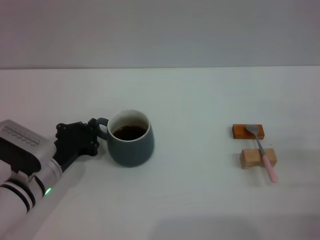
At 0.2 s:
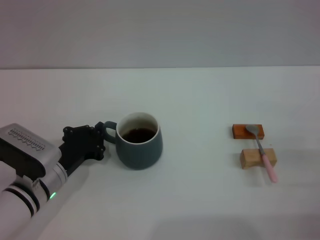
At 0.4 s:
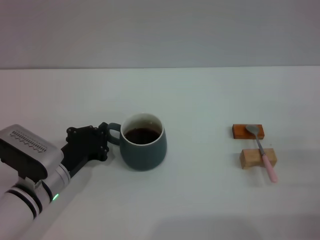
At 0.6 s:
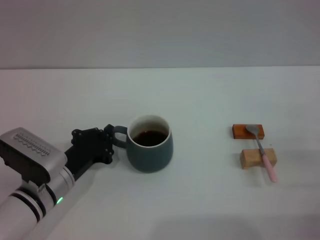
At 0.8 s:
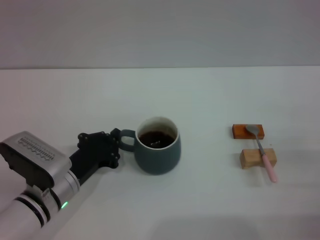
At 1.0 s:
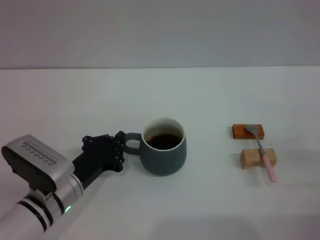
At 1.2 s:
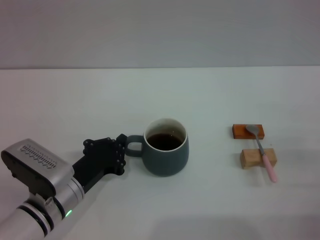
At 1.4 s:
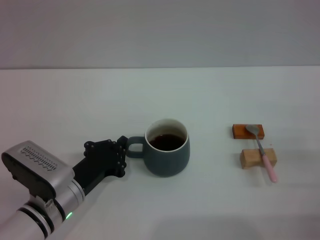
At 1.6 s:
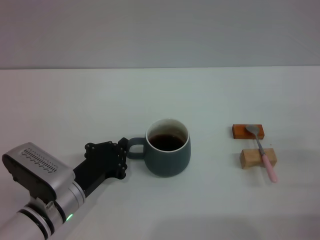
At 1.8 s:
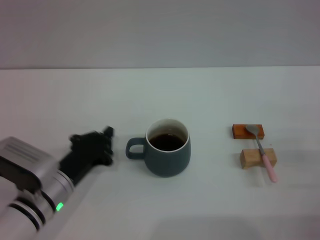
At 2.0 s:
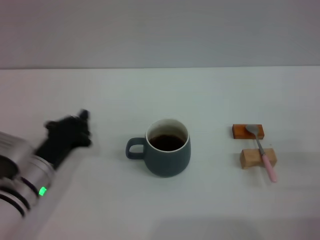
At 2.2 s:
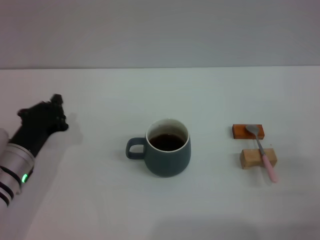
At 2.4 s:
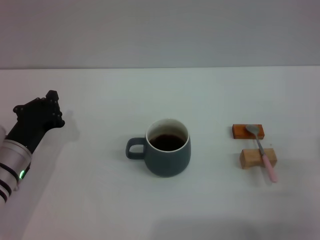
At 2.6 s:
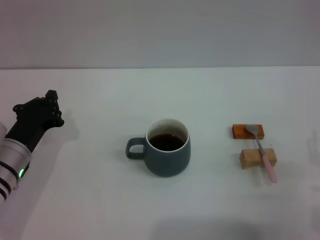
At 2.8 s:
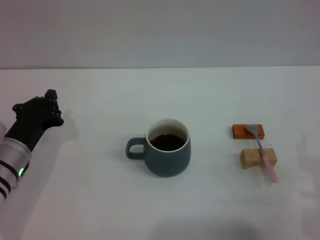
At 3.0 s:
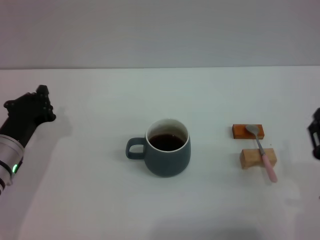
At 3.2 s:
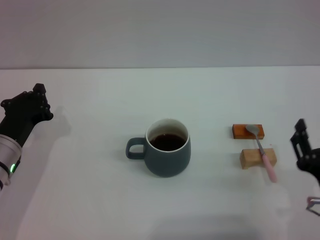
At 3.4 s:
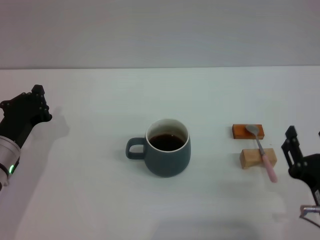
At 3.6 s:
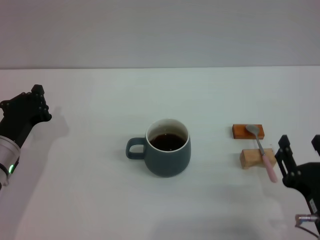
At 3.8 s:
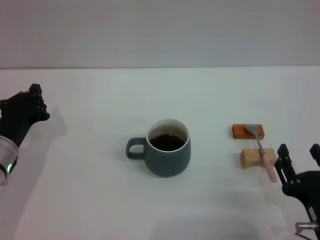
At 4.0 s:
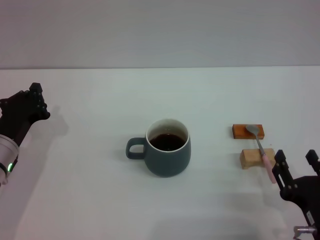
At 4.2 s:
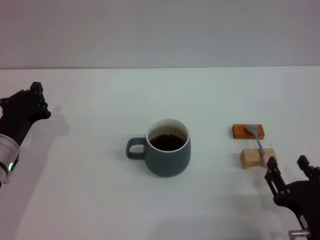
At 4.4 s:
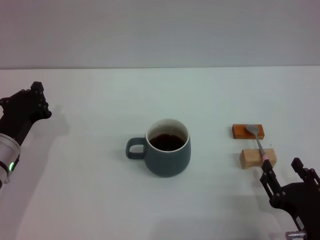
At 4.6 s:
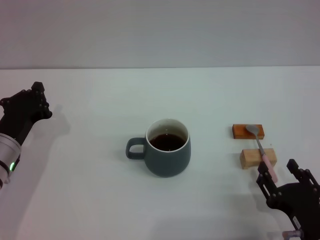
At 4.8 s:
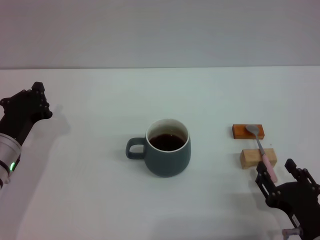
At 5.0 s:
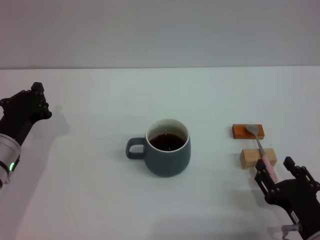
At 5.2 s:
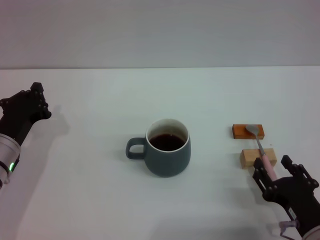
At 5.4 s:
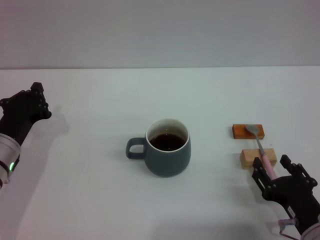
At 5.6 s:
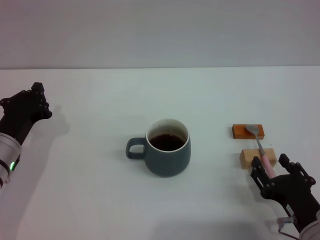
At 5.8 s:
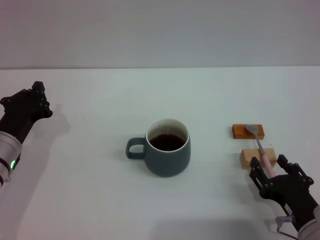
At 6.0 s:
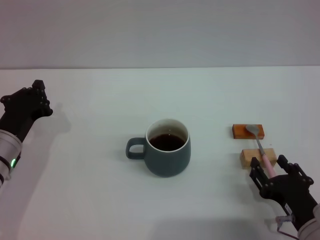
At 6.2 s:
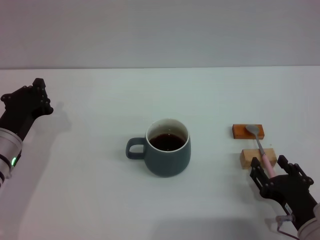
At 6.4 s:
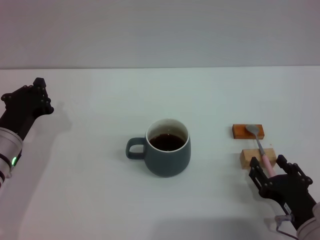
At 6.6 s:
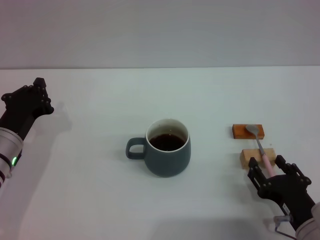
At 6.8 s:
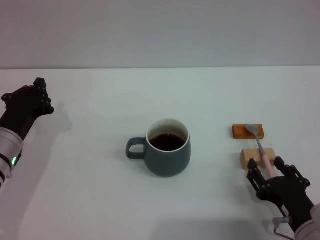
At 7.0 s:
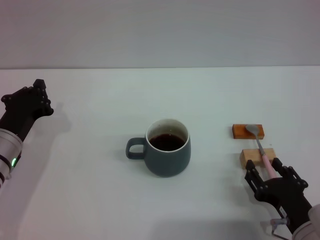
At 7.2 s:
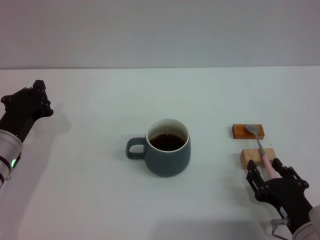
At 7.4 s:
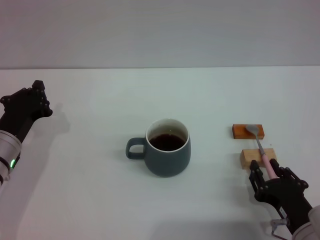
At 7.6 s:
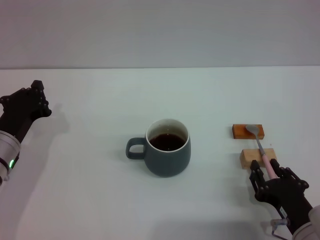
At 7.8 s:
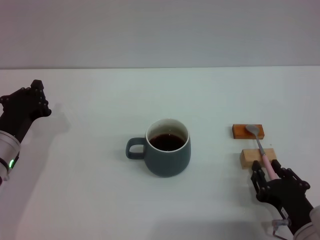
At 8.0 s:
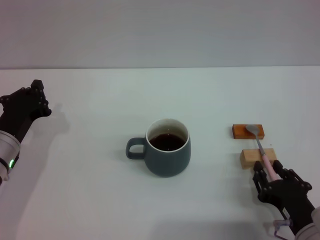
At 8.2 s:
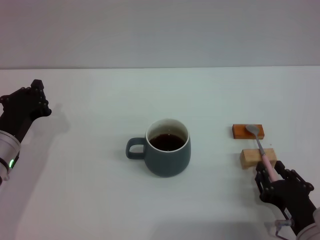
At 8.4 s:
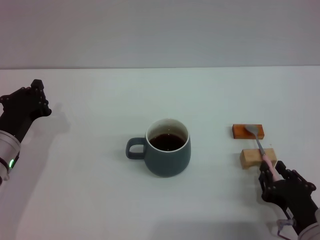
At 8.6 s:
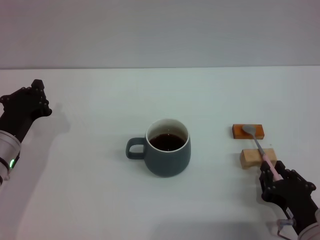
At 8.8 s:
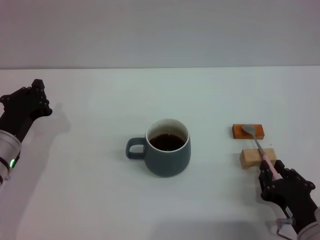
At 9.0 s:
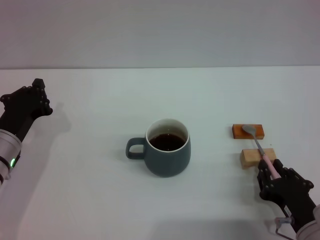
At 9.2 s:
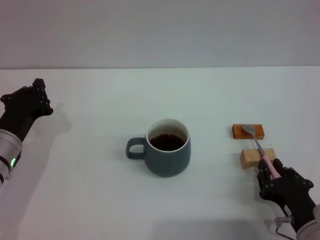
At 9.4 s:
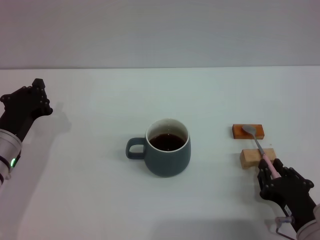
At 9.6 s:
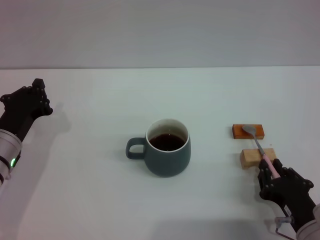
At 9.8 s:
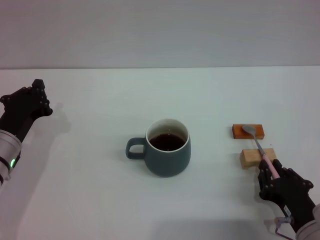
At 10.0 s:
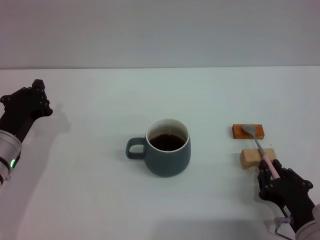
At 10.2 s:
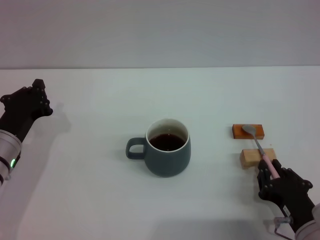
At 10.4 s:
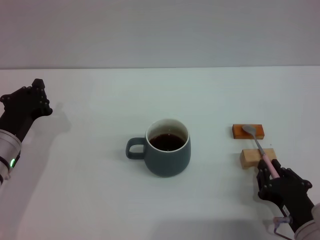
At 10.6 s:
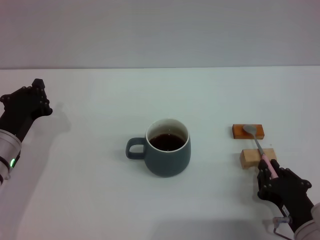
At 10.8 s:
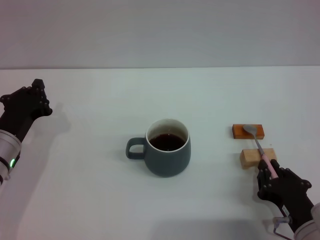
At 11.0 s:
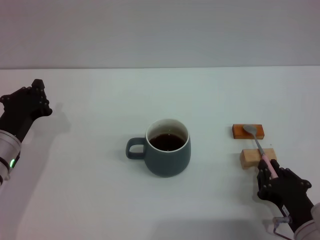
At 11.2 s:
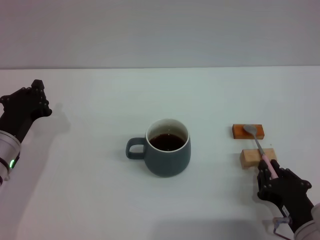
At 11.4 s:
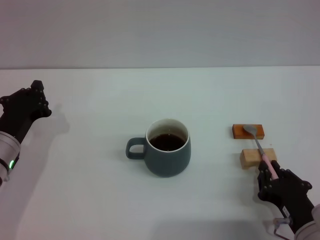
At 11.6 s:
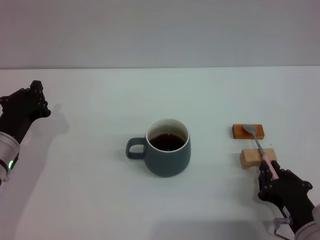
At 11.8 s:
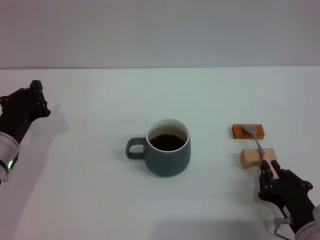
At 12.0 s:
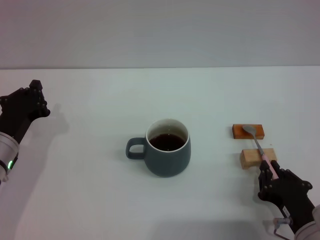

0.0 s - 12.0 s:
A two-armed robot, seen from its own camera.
Task of the whole recording: Move the grey cup to the center, lift the pink spoon, stir it three times in the cup, and put the spoon into the cup.
0.0 s - 1.6 s: The left gripper changes place by roughly 5 cm.
1.6 s - 3.0 s: The left gripper goes some 10 cm to the left, while the right gripper shifts about 15 cm to the left and backward.
3.0 s - 4.4 s: The right gripper moves approximately 5 cm.
4.4 s - 6.0 s: The grippers move only a little.
6.0 s - 12.0 s: Both grippers stay about where they are.

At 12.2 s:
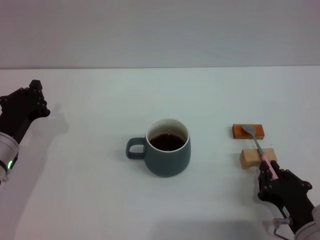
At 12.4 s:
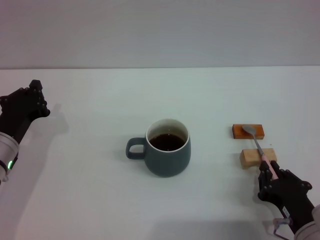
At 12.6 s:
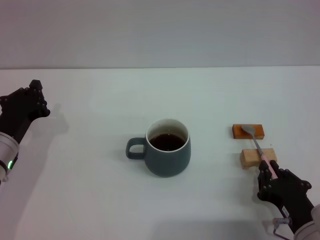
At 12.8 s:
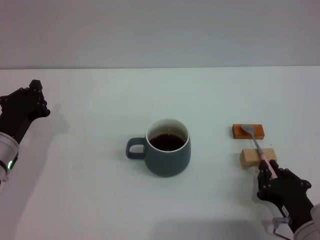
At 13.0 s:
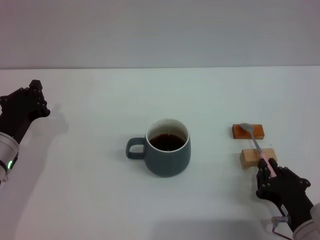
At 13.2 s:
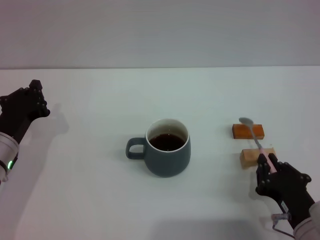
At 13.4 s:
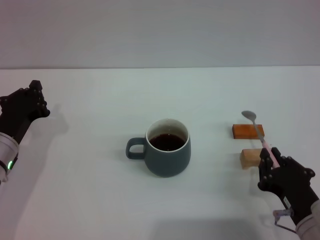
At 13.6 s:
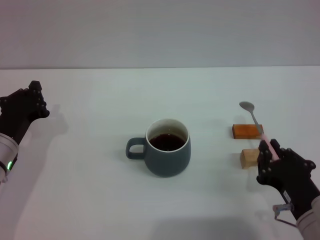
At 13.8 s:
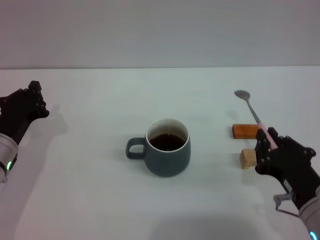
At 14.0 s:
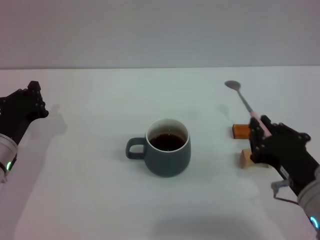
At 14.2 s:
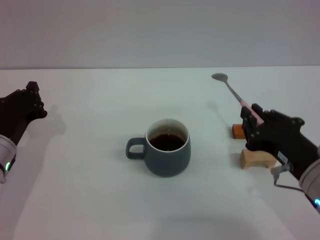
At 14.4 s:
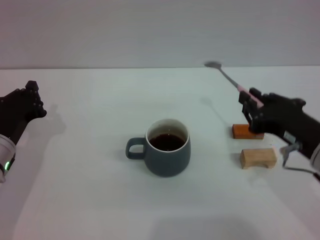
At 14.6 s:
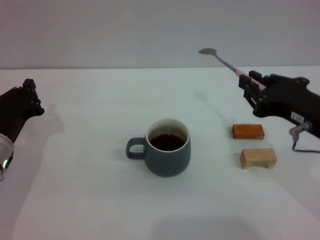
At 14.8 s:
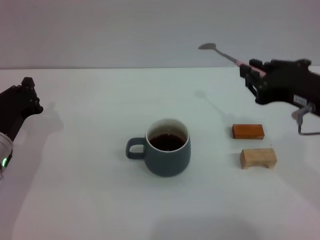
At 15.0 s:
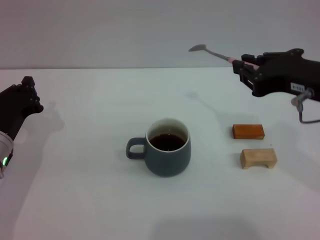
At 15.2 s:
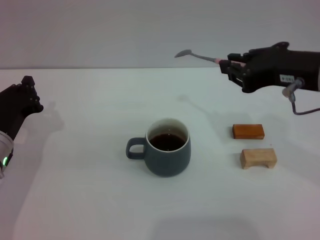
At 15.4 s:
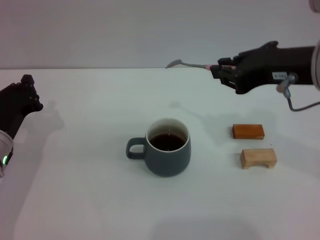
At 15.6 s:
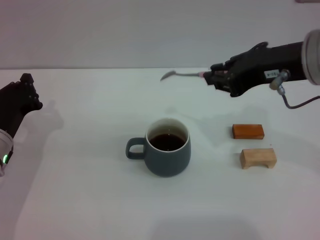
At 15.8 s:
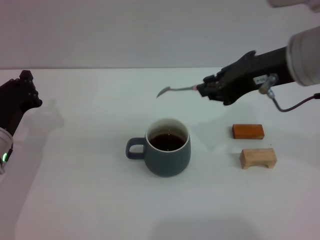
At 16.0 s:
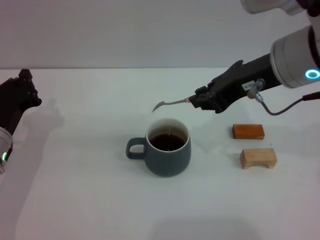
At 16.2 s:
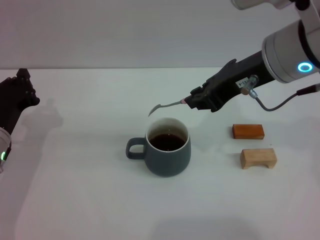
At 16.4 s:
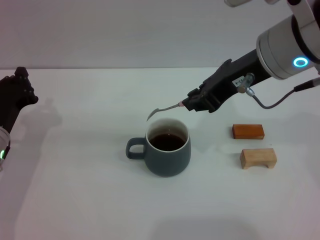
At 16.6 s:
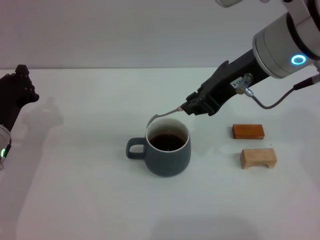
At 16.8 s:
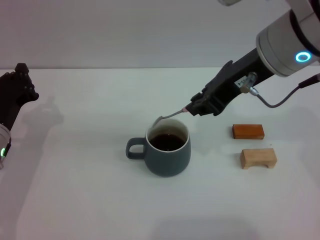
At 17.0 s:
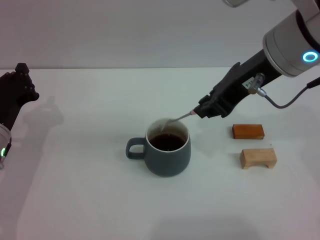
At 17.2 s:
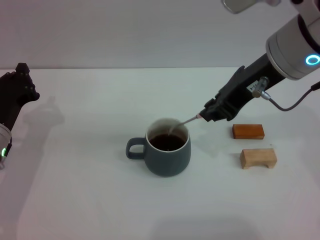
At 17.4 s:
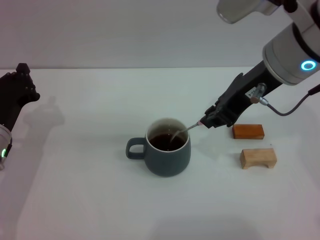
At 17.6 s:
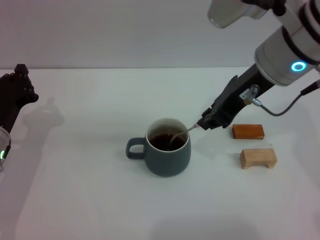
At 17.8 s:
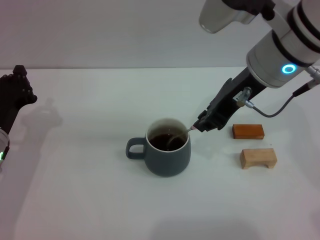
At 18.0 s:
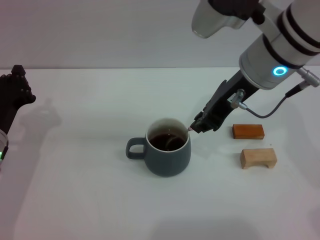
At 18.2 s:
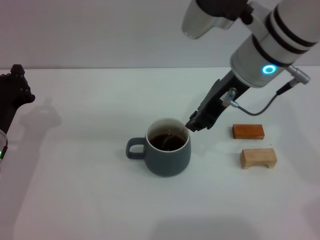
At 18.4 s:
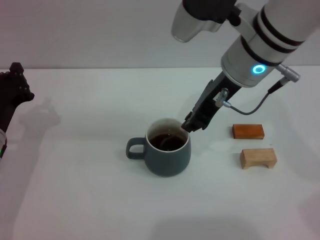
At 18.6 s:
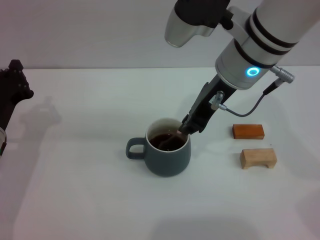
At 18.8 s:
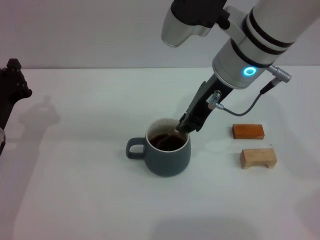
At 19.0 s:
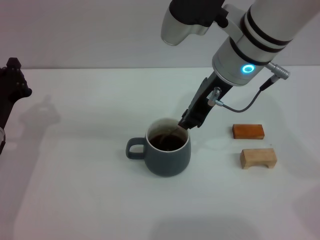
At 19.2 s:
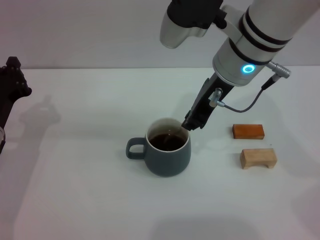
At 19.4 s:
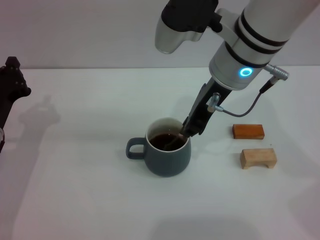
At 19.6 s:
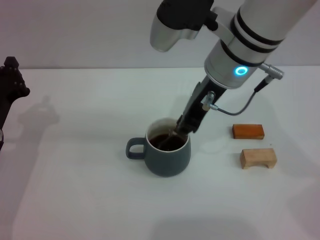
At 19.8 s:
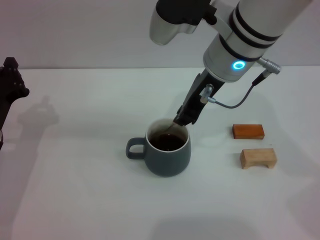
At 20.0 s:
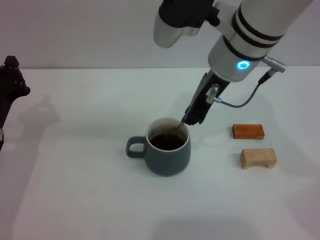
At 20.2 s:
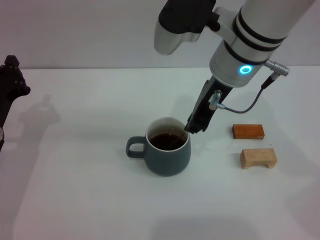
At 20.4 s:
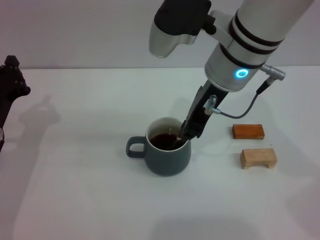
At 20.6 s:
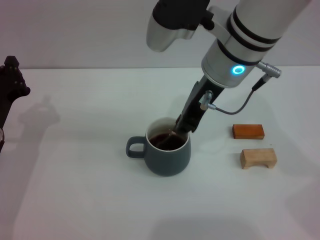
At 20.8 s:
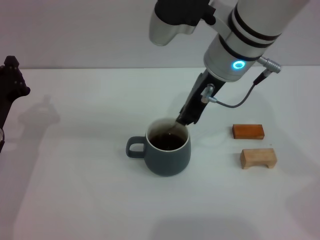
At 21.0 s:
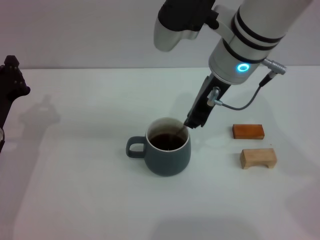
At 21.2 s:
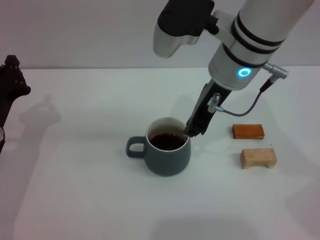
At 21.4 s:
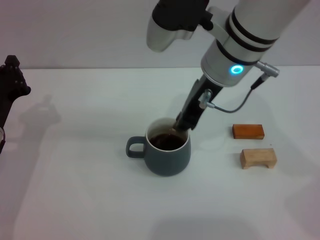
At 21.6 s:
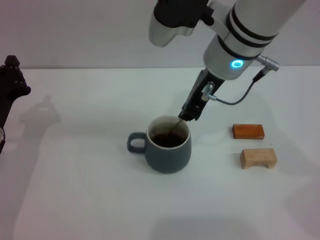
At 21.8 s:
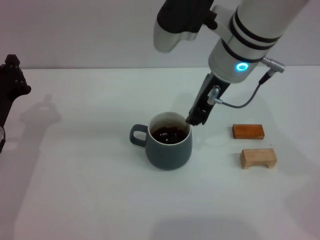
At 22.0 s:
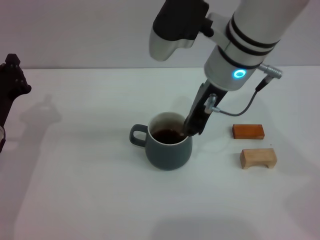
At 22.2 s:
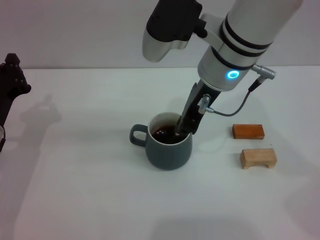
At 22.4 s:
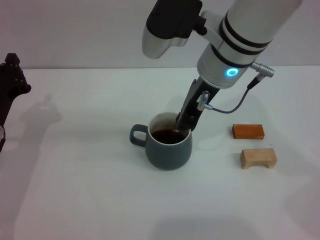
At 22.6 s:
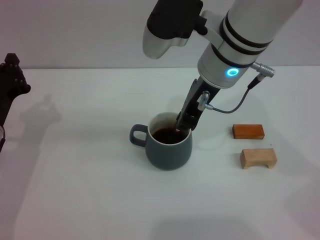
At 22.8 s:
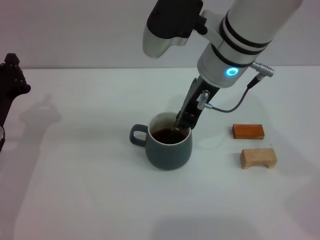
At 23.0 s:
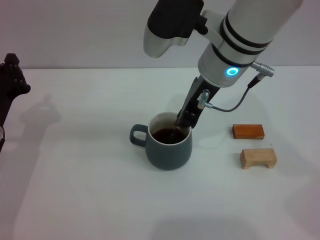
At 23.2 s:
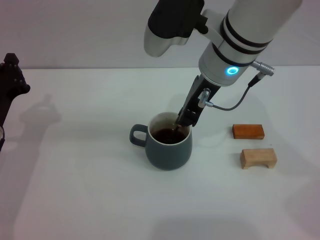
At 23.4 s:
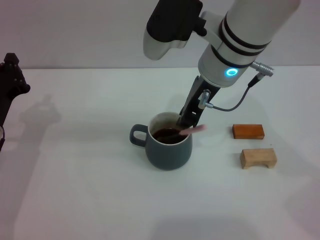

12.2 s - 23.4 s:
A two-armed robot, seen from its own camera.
Task of the whole recording: Move the grey cup to the center, lift the pink spoon, stir it three times in the cup, and put the spoon into the cup.
12.2 s - 13.8 s: The right gripper is displaced upward by approximately 5 cm.
13.8 s - 15.4 s: The right gripper is displaced upward and forward by about 20 cm.
15.4 s - 17.0 s: The right gripper shifts by roughly 5 cm.
17.0 s - 18.6 s: The right gripper shifts by about 5 cm.
18.6 s - 23.4 s: The grippers make only small movements.
